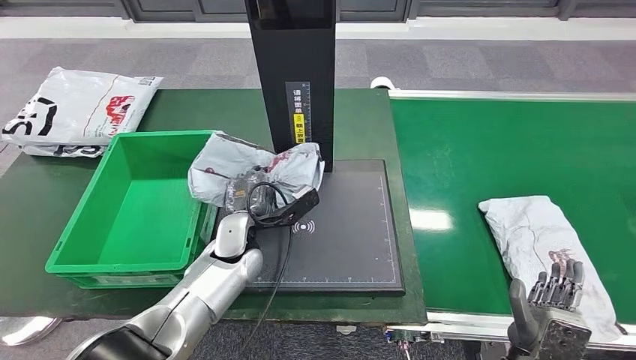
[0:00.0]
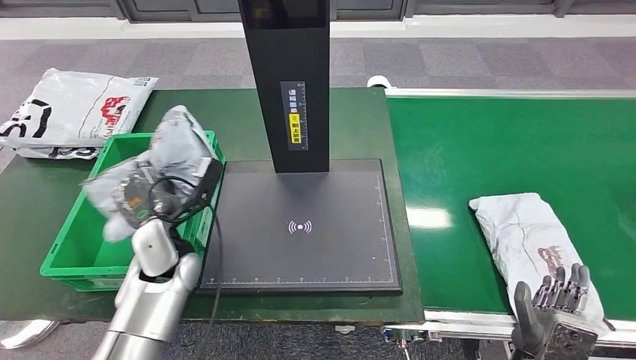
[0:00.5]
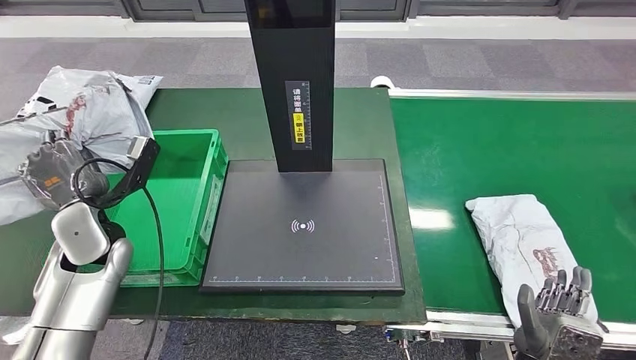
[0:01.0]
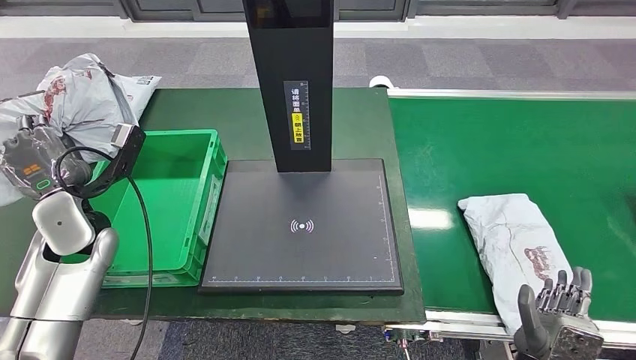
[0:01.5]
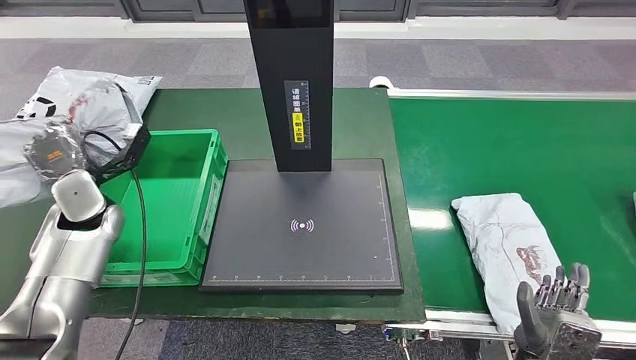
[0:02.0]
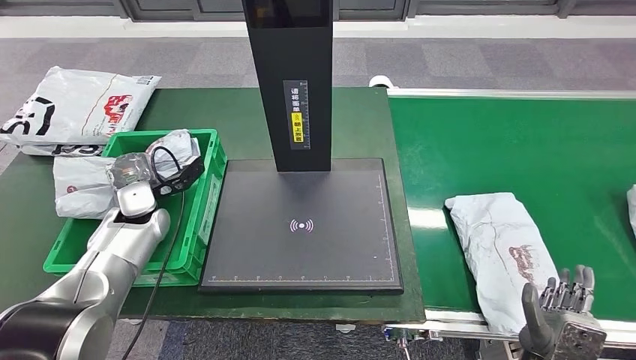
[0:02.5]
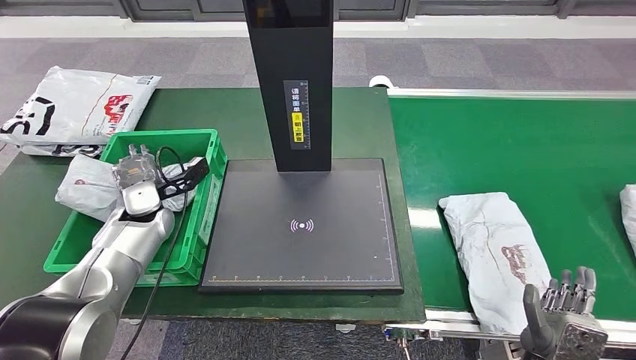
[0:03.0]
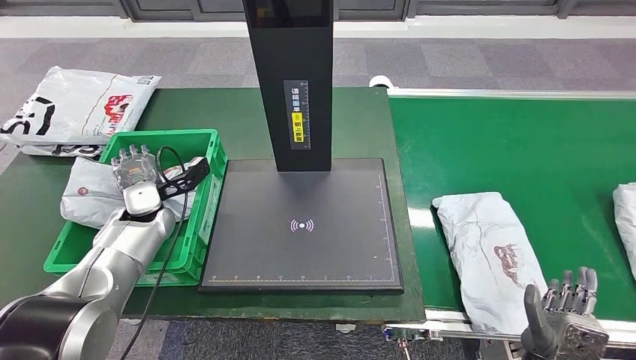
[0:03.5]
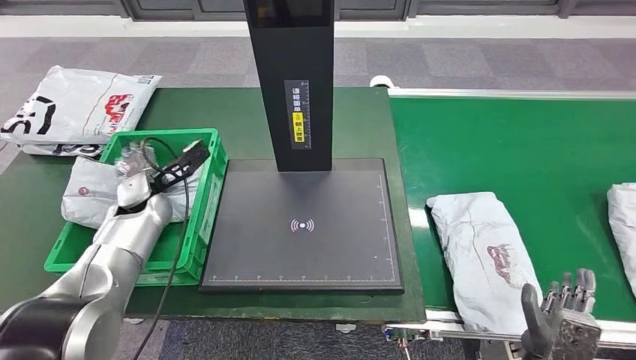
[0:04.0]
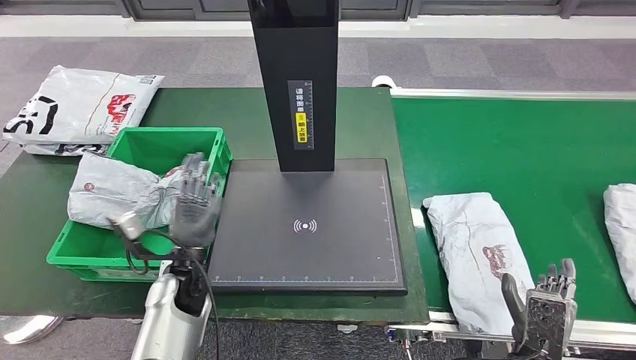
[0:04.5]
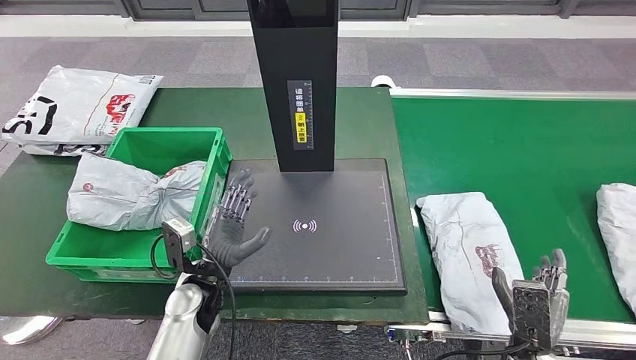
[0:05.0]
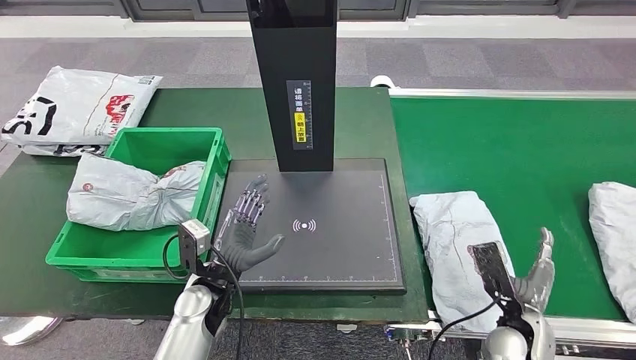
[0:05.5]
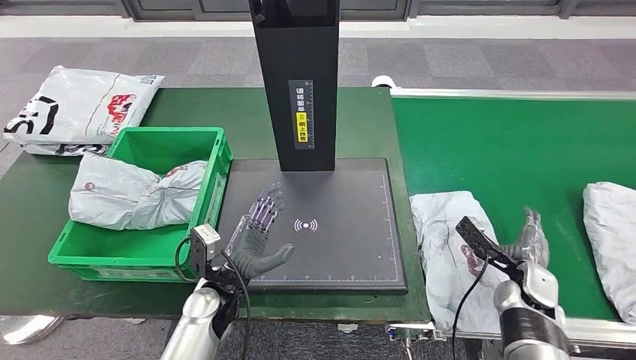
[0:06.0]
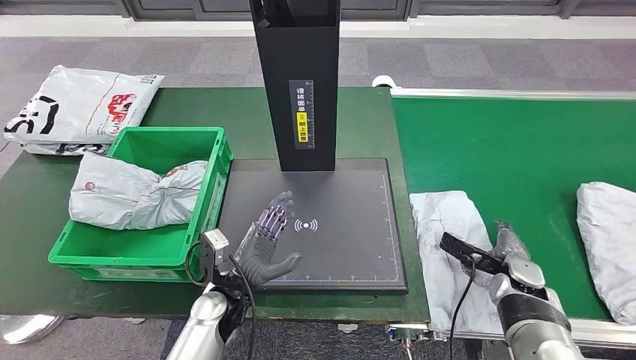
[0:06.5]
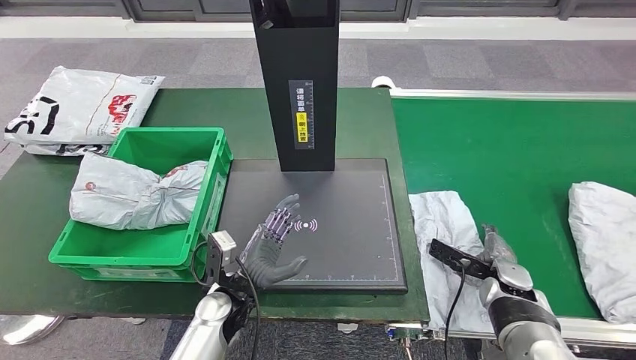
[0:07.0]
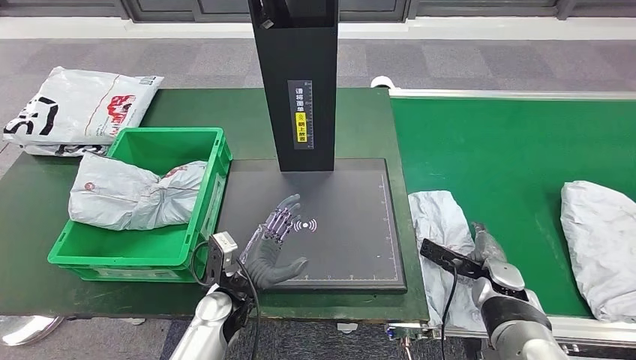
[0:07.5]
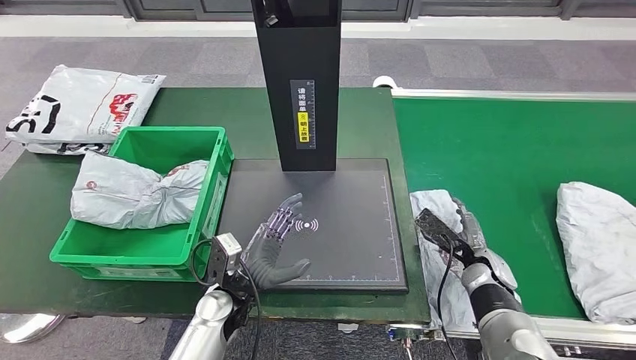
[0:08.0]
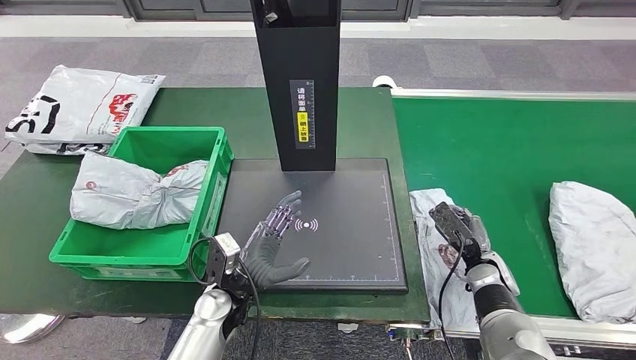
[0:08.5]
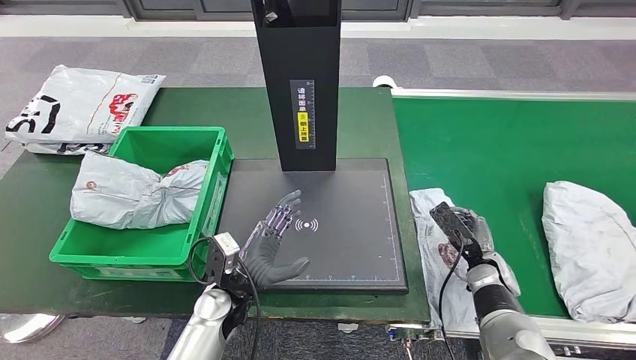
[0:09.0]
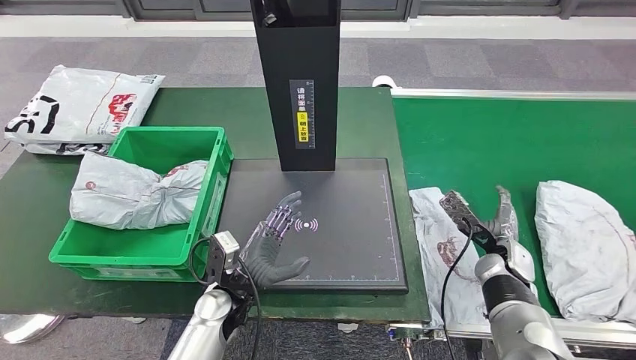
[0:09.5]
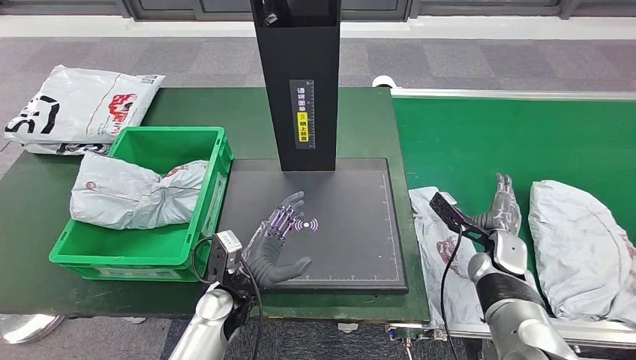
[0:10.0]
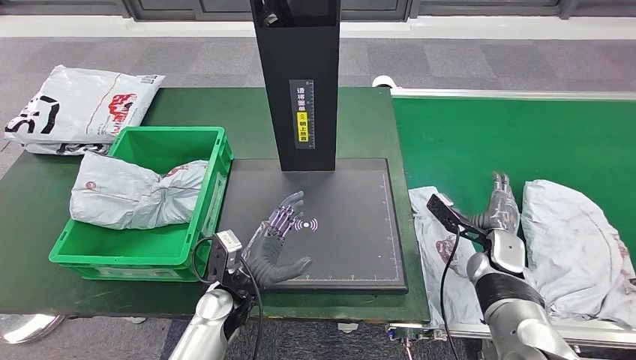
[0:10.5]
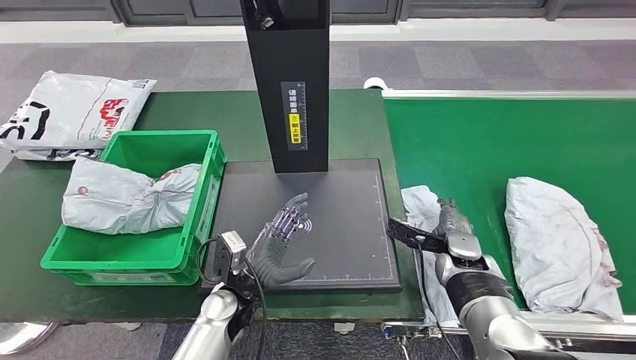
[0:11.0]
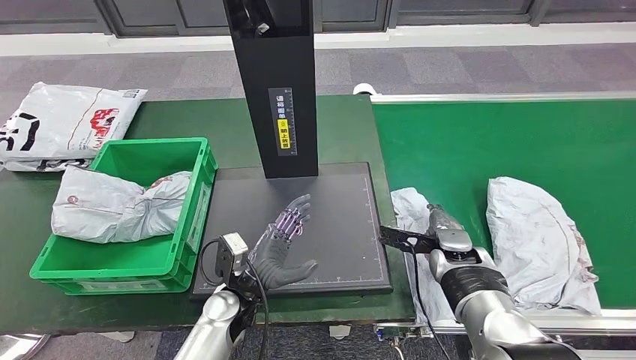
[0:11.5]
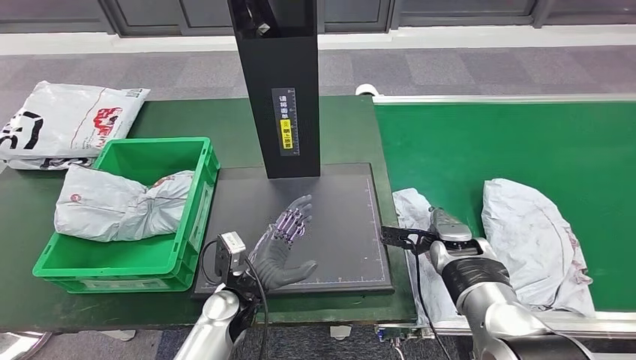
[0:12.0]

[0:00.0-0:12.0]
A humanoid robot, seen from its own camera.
Step, 0:02.0 to 0:04.0: Put the parcel inside the courier box.
0:06.0 to 0:08.0: The right hand moves to the left, about 5 cm.

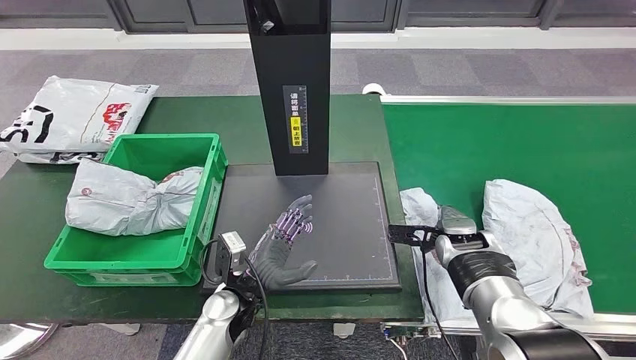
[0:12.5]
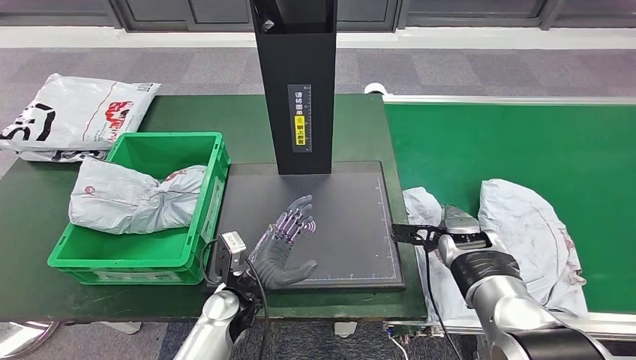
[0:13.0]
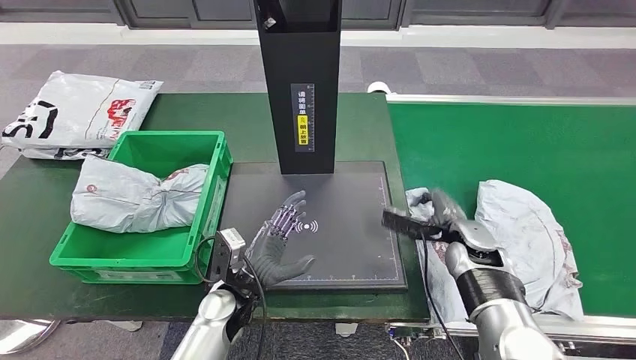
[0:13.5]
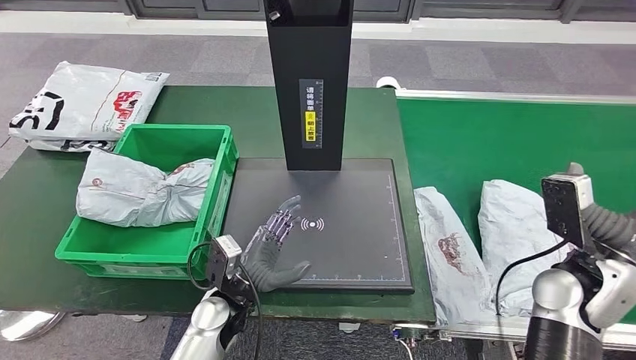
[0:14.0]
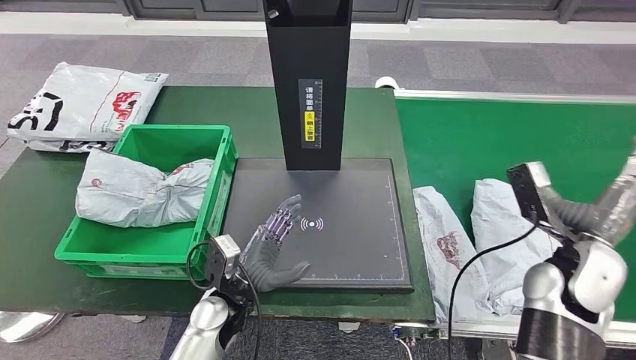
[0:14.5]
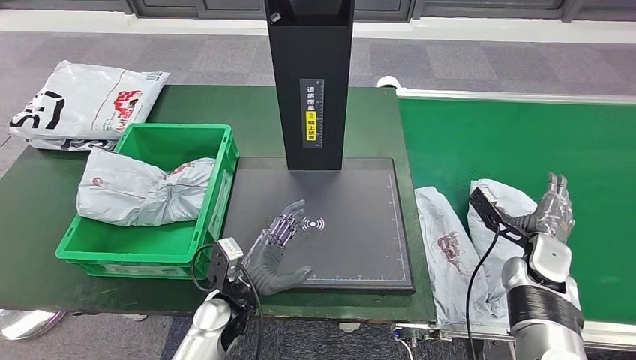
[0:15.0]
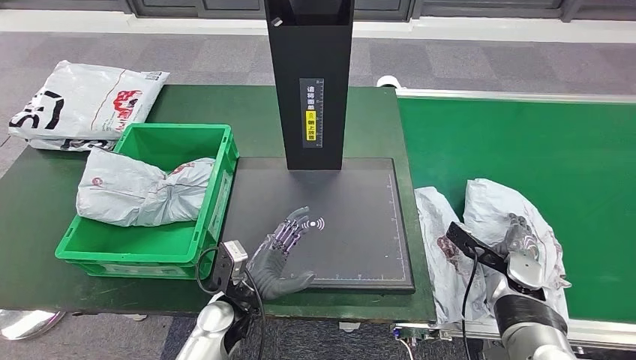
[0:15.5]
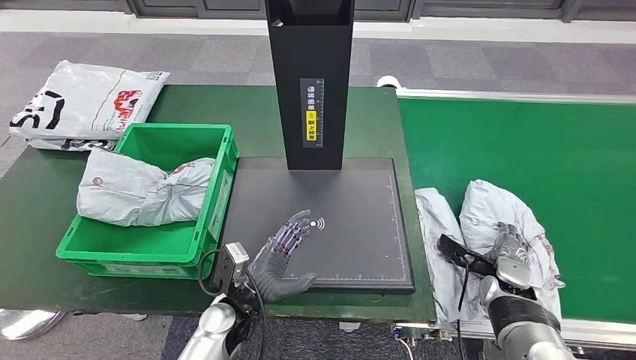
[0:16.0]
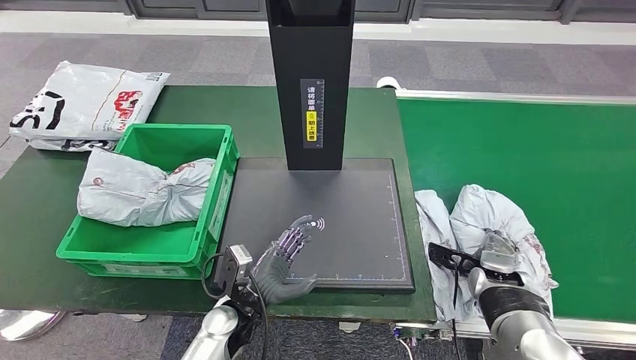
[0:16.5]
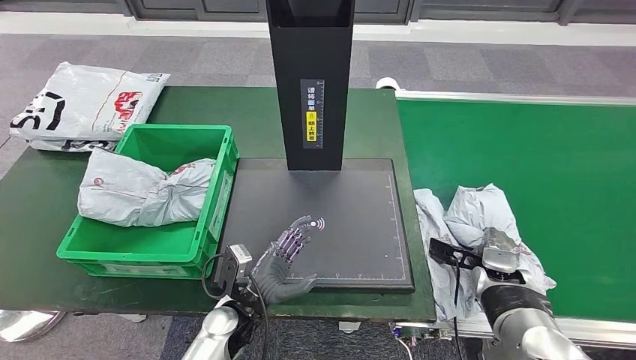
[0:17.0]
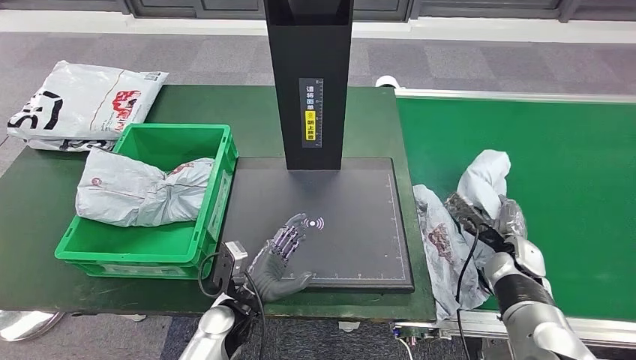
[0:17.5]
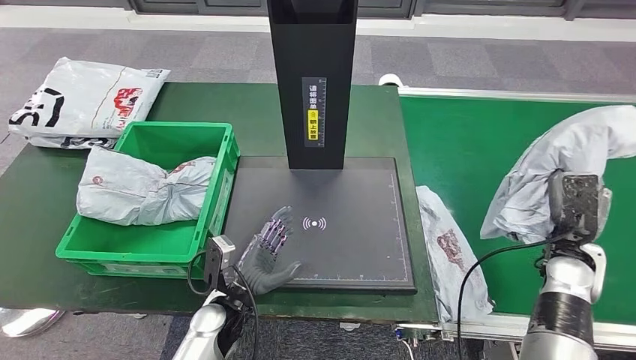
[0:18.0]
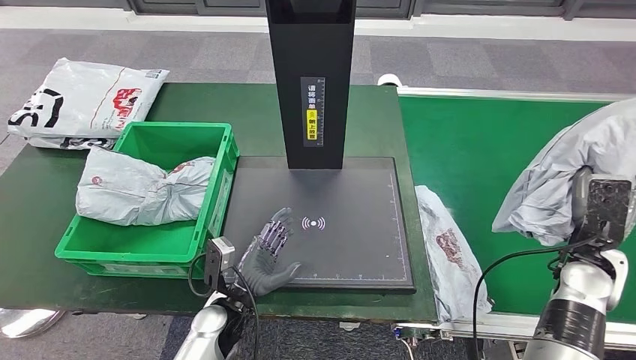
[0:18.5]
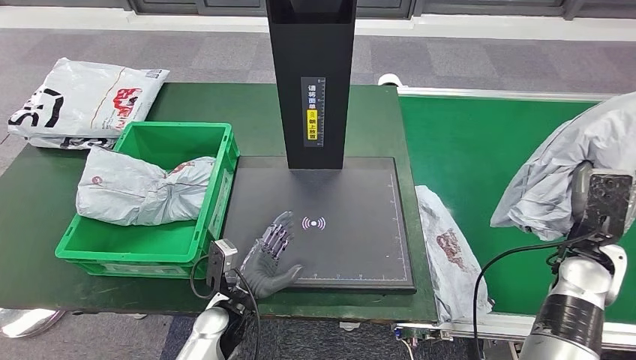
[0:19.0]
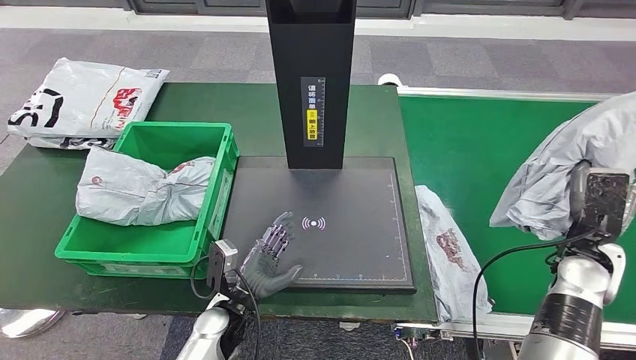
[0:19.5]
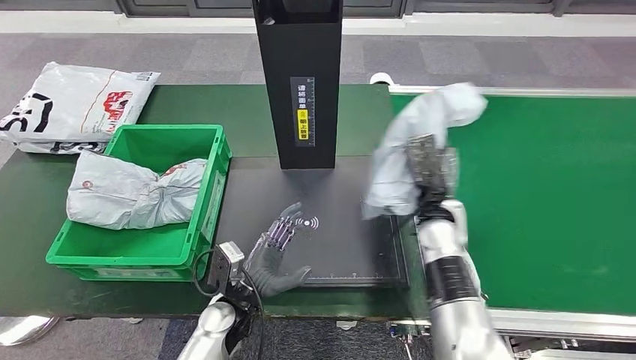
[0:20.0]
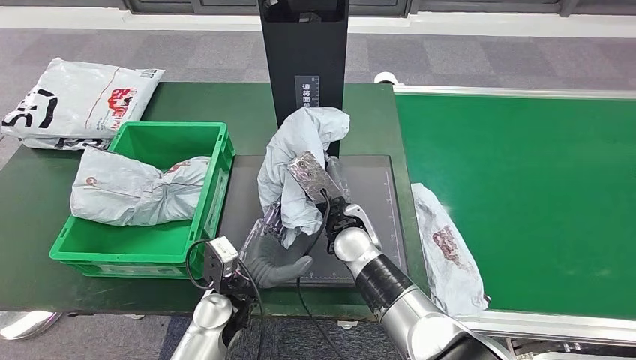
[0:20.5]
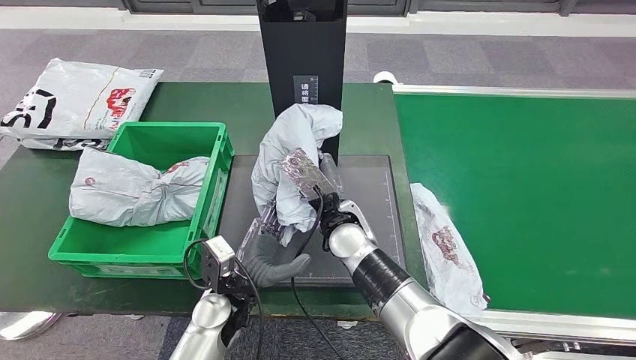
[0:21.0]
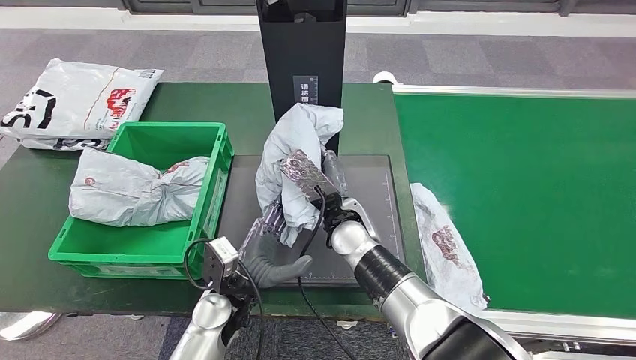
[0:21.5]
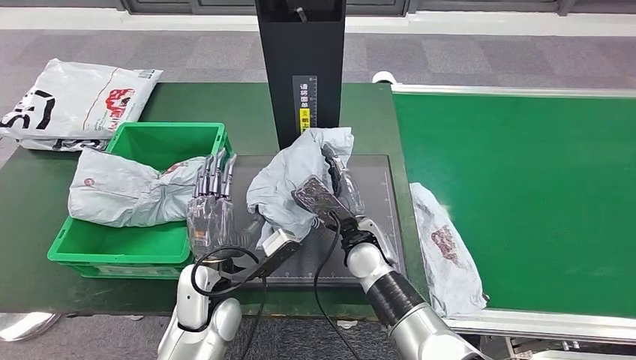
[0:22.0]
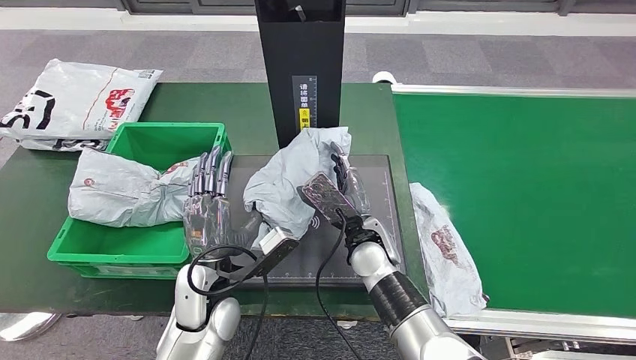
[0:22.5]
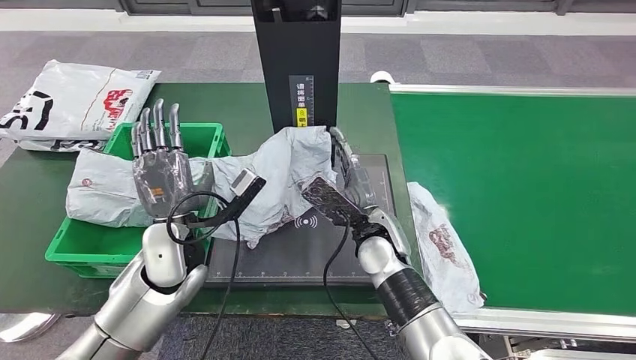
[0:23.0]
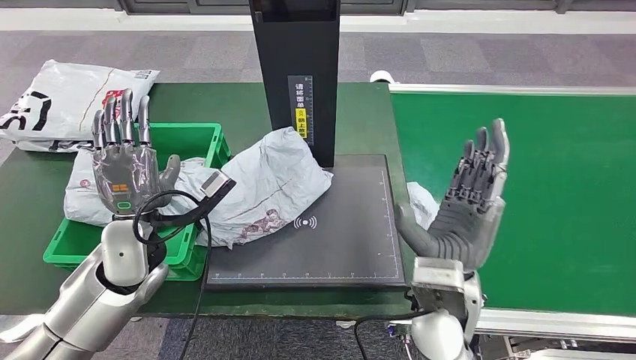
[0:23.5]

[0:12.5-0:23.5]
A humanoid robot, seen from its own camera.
Step, 0:12.5 to 0:18.5: Pick up the parcel from the conveyor belt.
Step, 0:19.0 to 0:23.0: Place the parcel onto the inbound machine.
0:14.5 to 0:16.0: The right hand moves downward, approximately 15 cm.
